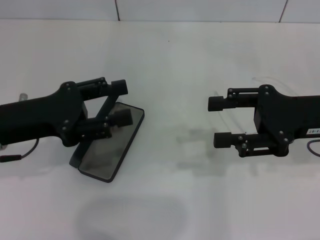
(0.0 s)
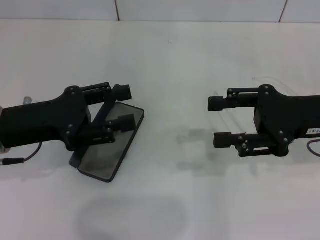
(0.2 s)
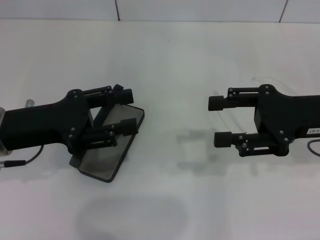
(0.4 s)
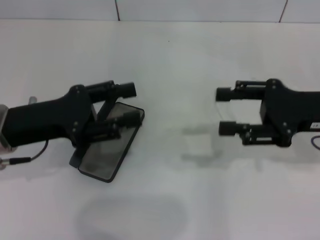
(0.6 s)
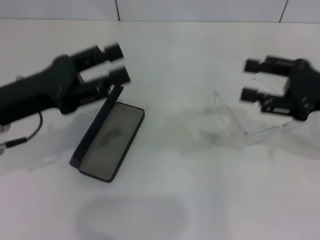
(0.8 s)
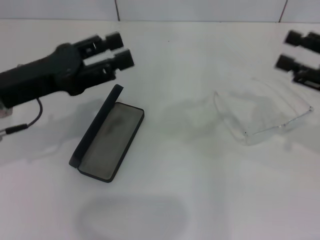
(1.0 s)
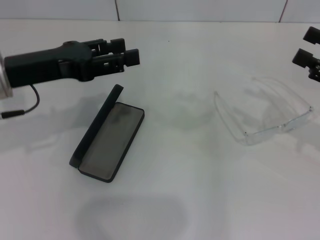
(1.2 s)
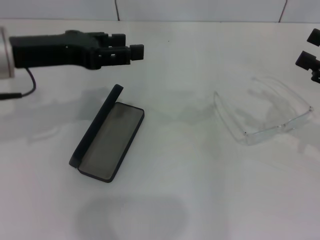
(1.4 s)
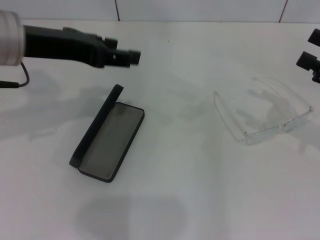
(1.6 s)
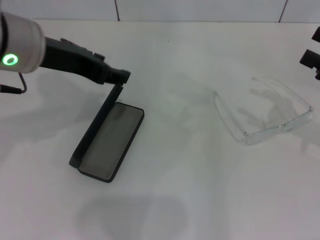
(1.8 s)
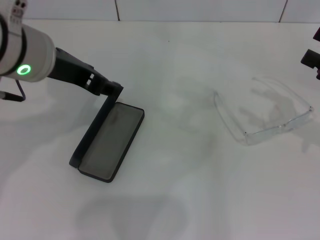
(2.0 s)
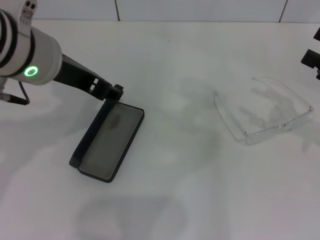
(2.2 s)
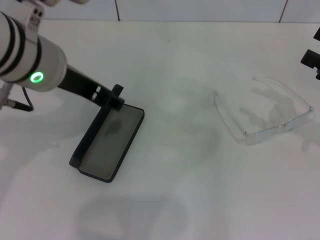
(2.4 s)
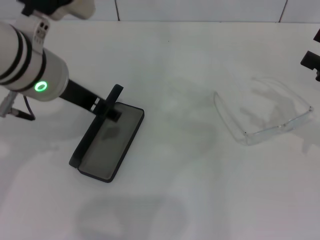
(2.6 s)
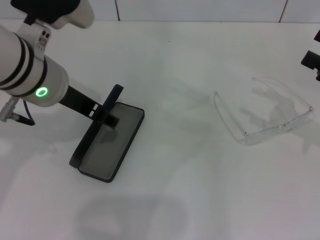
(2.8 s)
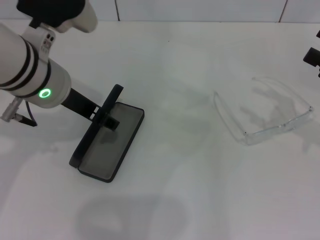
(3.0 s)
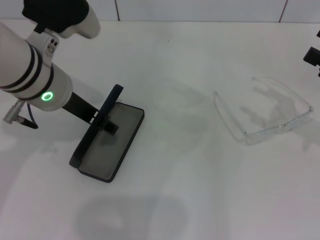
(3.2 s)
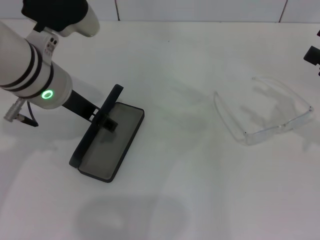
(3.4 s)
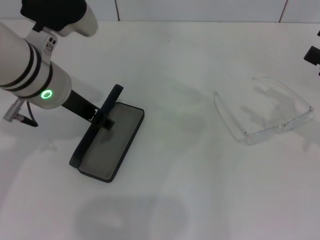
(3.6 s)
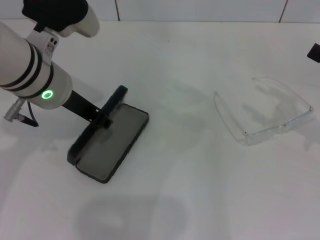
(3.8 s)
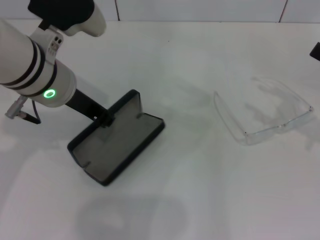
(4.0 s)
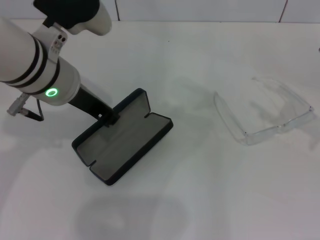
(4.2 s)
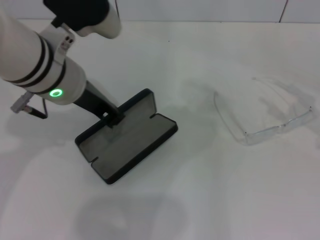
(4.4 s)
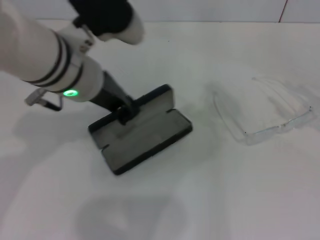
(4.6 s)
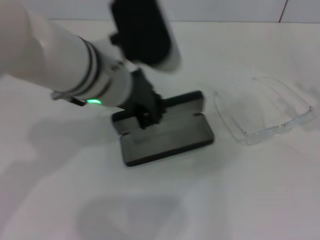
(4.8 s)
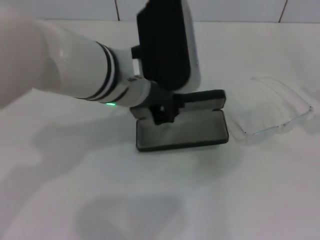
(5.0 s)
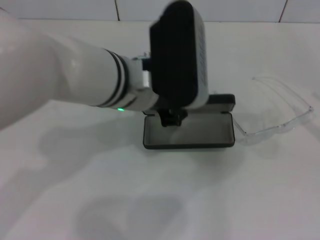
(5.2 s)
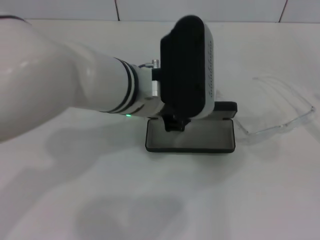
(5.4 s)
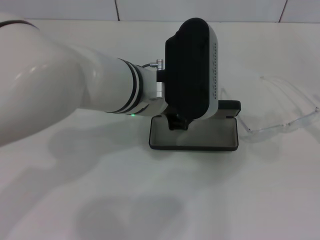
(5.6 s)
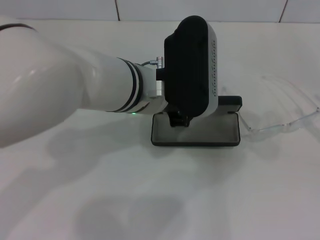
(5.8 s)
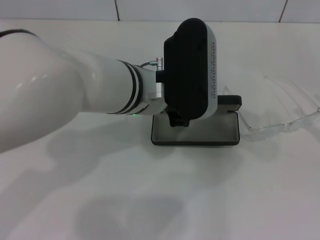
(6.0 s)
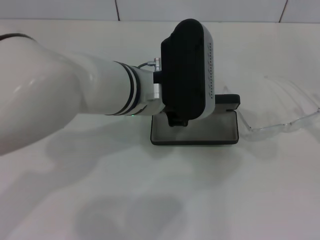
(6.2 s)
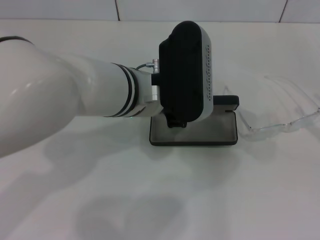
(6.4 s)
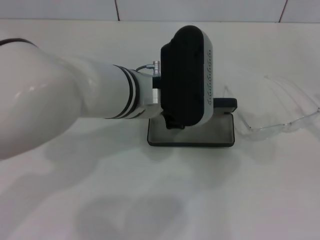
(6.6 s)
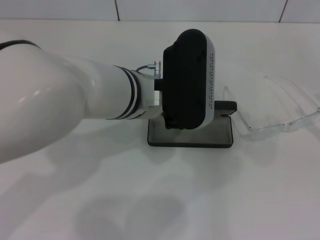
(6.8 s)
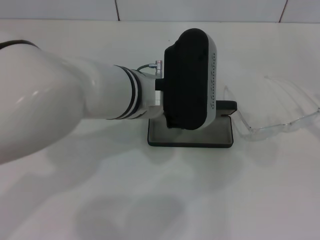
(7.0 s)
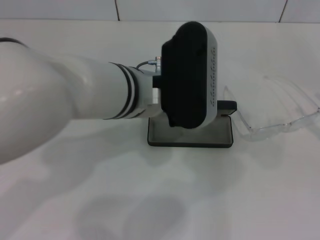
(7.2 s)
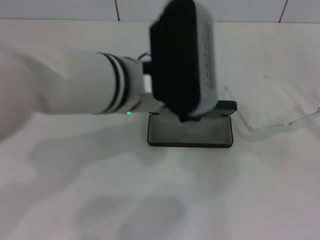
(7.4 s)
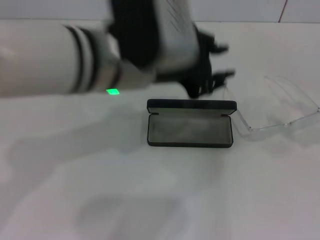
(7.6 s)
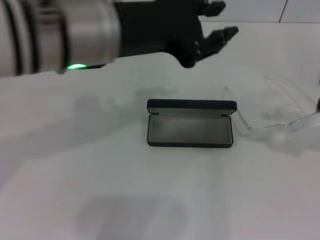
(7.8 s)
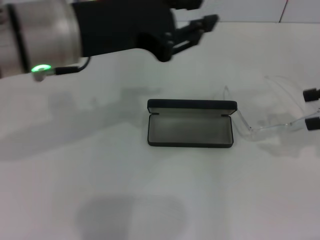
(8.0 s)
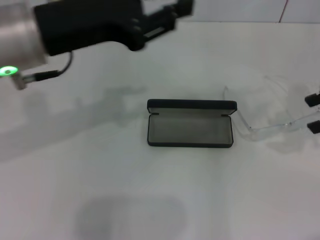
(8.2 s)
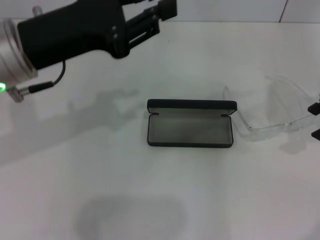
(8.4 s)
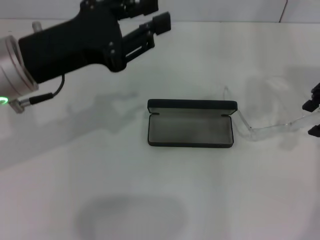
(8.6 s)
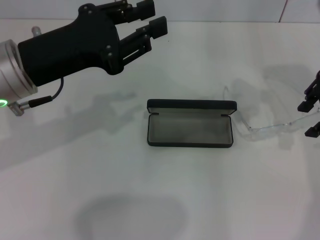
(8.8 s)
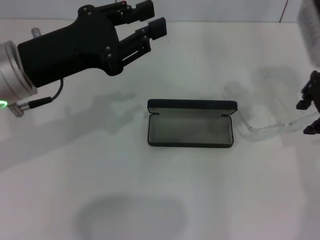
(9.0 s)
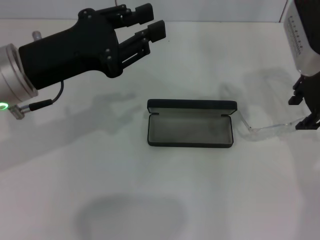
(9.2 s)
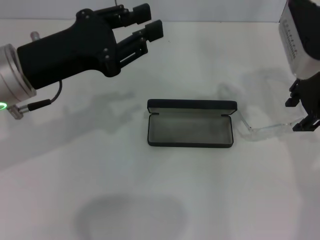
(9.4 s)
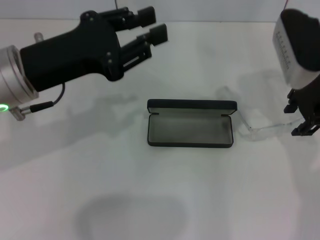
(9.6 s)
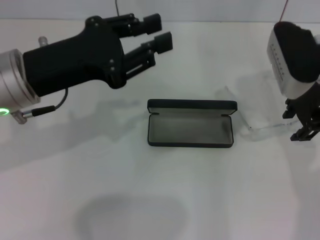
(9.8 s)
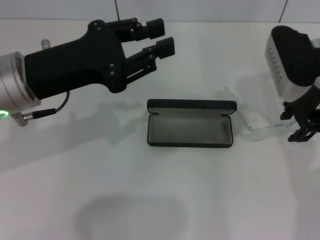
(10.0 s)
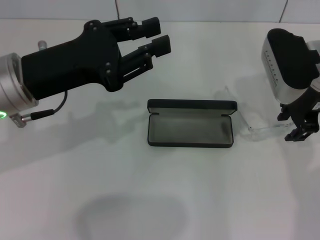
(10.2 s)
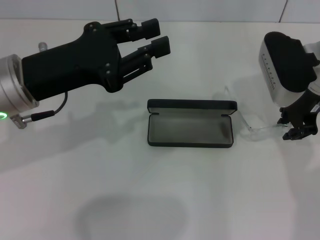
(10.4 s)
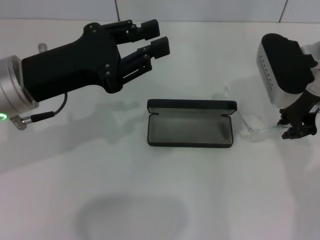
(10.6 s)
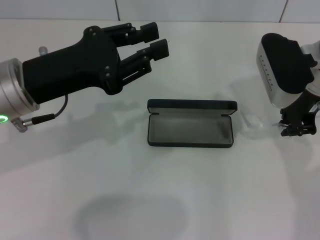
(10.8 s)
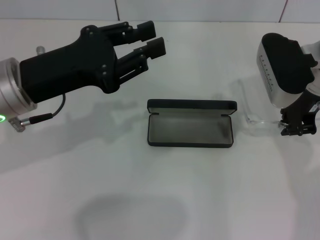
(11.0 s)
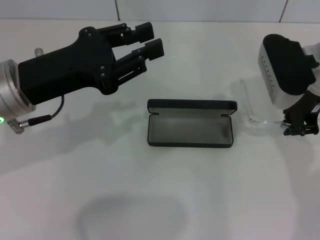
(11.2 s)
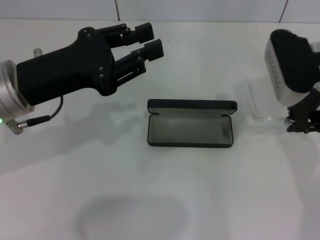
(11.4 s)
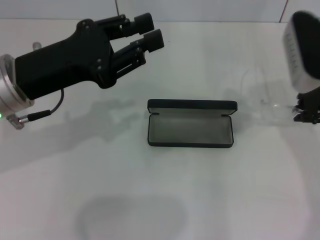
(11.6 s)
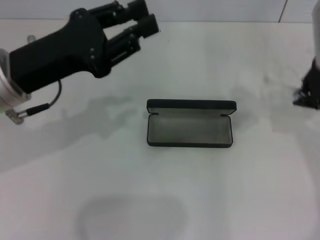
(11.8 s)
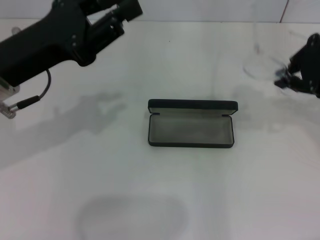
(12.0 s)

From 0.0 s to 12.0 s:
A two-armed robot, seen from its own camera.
Step, from 0.0 s to 3.8 s: Grab the glasses case with your left hand.
Step, from 4.2 s to 6.8 s: Place the glasses case in the center of the table with your left hand.
Step, from 7.0 s to 10.8 s: Grab the eyeglass frame with your right hand.
From 0.0 s to 1.6 s: The right gripper shifts about 10 cm to the right, while the left gripper travels upward by some 10 cm.
From 1.6 s to 3.0 s: The left gripper heads to the right, covering roughly 5 cm.
From 3.0 s to 4.4 s: The left gripper closes.
From 4.4 s to 6.0 s: The left gripper heads to the right, covering some 10 cm. Meanwhile the right gripper goes roughly 5 cm backward.
From 6.0 s to 7.6 s: The left gripper is displaced upward by approximately 5 cm.
From 7.6 s to 9.0 s: The left gripper moves to the left, roughly 15 cm. The right gripper moves to the left, forward and upward, some 25 cm.
From 9.0 s to 10.4 s: The right gripper moves downward, about 5 cm.
From 10.4 s to 12.0 s: The right gripper moves upward and to the right, about 10 cm, and closes up.

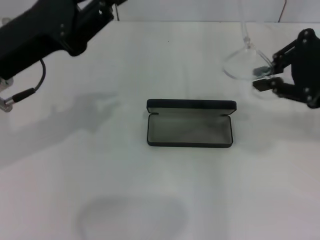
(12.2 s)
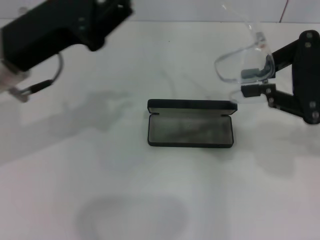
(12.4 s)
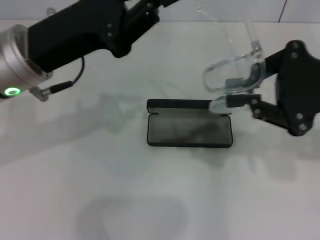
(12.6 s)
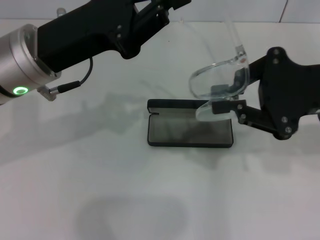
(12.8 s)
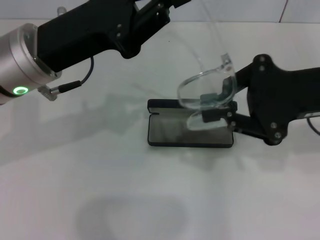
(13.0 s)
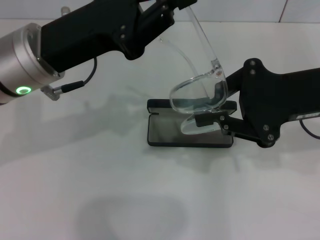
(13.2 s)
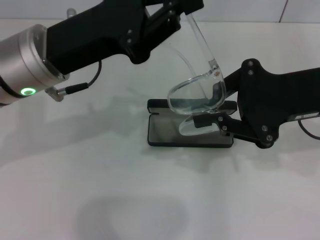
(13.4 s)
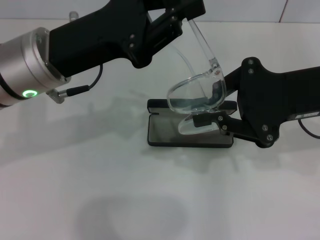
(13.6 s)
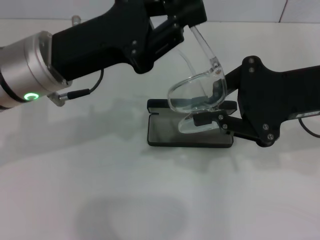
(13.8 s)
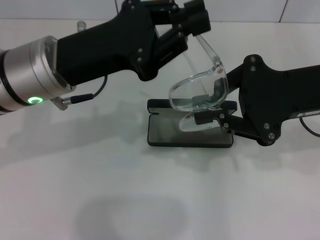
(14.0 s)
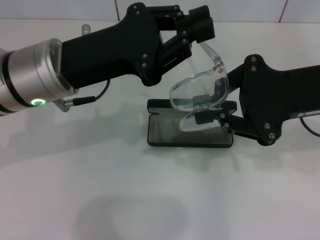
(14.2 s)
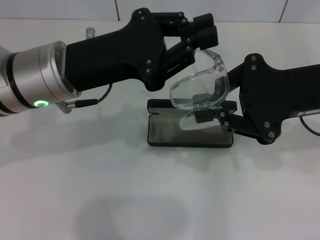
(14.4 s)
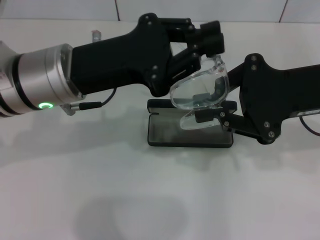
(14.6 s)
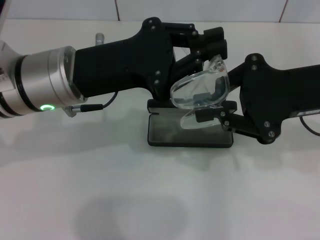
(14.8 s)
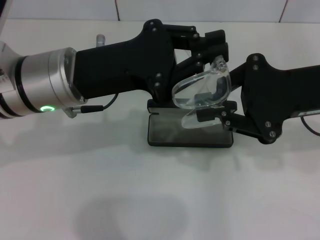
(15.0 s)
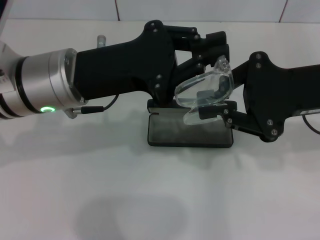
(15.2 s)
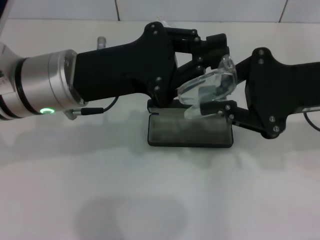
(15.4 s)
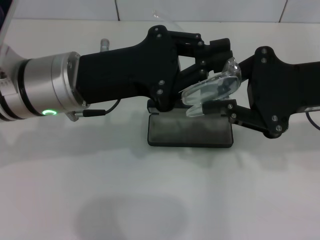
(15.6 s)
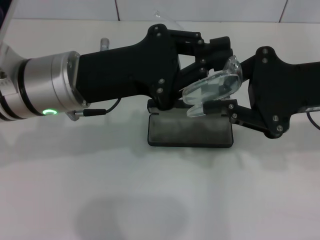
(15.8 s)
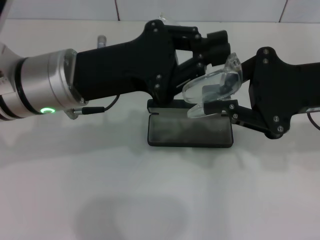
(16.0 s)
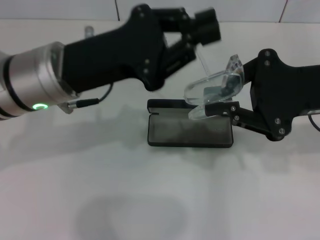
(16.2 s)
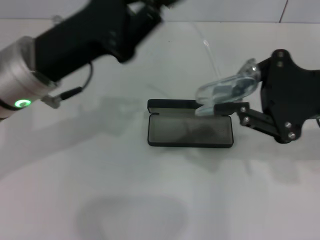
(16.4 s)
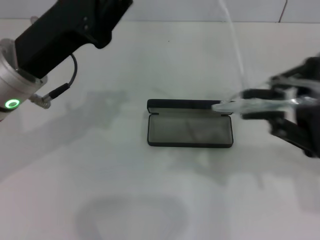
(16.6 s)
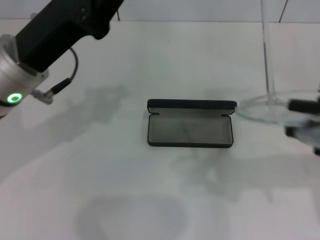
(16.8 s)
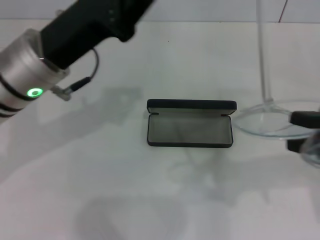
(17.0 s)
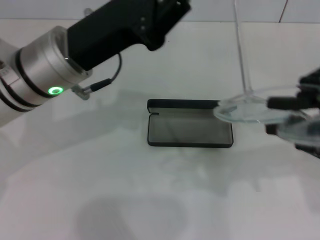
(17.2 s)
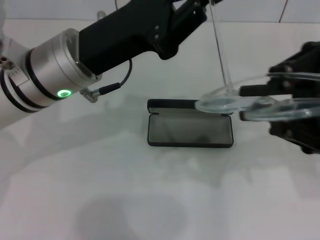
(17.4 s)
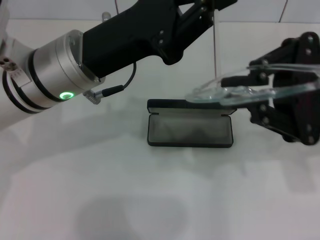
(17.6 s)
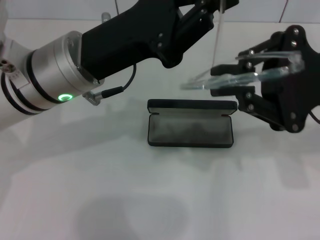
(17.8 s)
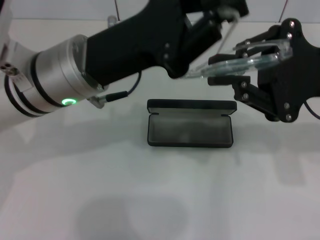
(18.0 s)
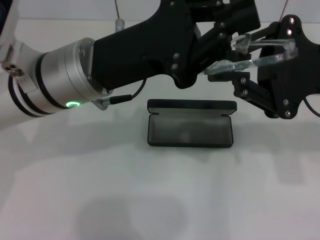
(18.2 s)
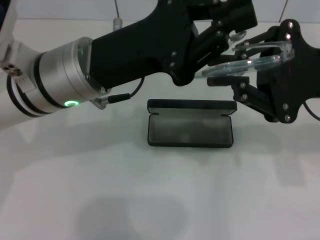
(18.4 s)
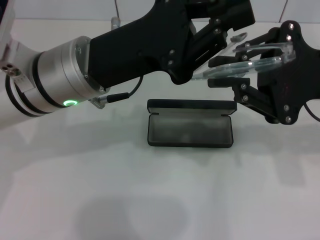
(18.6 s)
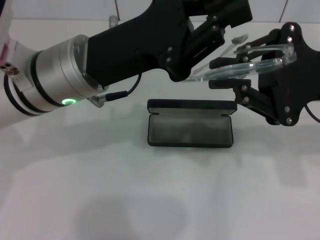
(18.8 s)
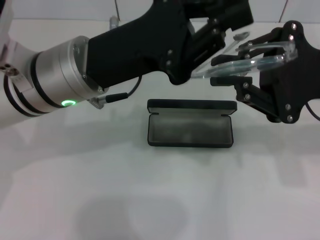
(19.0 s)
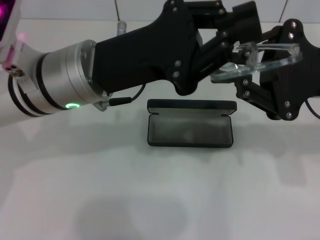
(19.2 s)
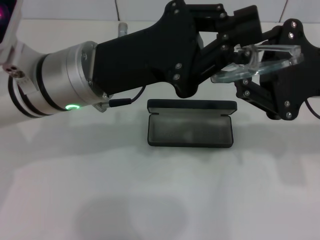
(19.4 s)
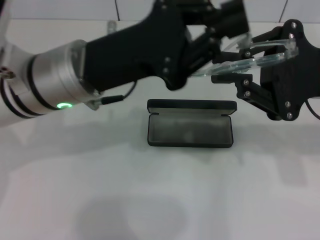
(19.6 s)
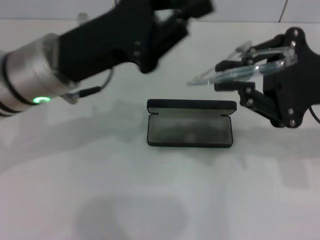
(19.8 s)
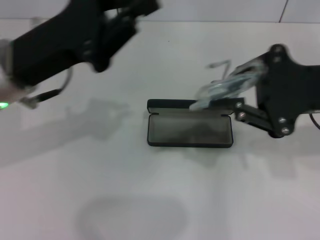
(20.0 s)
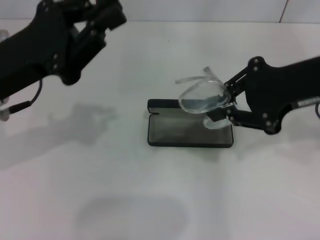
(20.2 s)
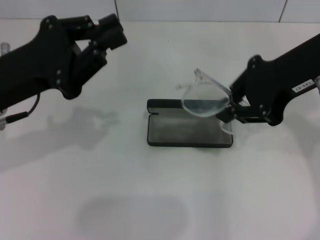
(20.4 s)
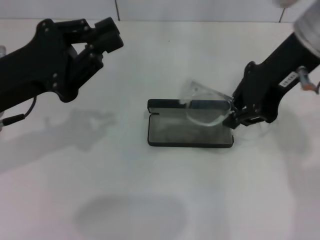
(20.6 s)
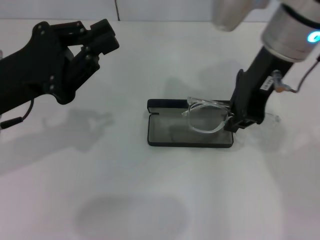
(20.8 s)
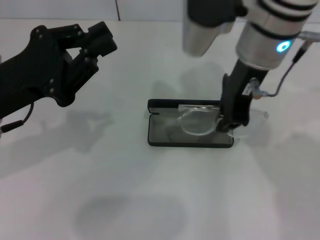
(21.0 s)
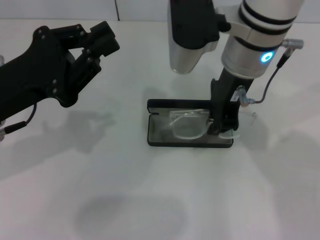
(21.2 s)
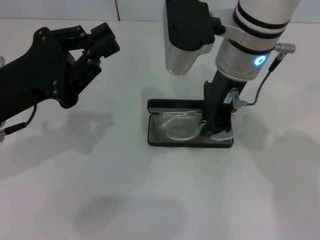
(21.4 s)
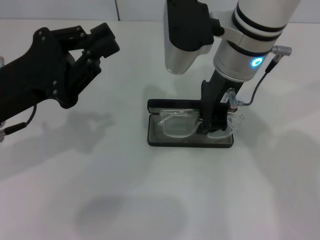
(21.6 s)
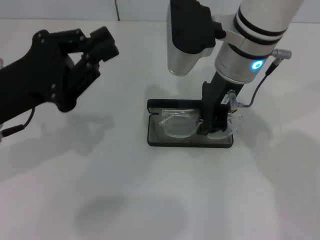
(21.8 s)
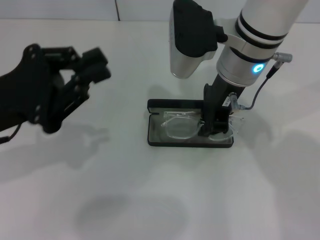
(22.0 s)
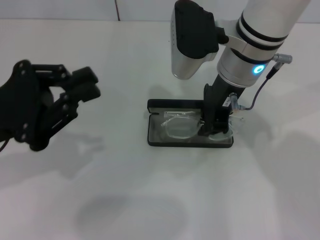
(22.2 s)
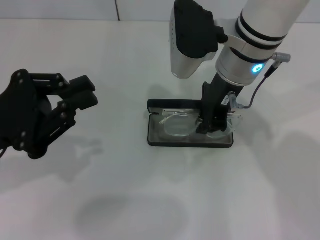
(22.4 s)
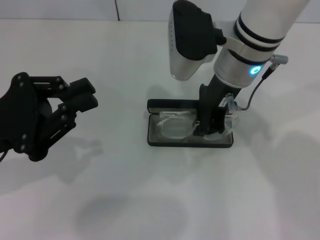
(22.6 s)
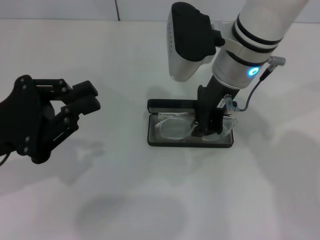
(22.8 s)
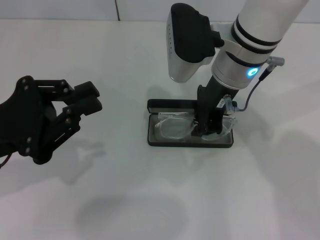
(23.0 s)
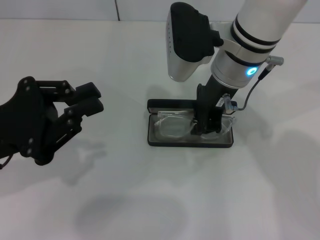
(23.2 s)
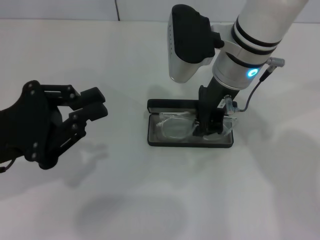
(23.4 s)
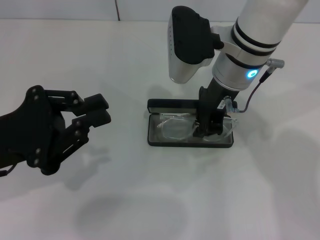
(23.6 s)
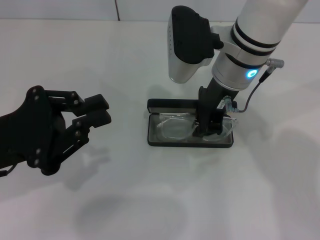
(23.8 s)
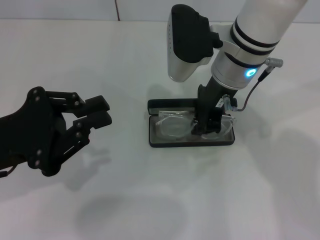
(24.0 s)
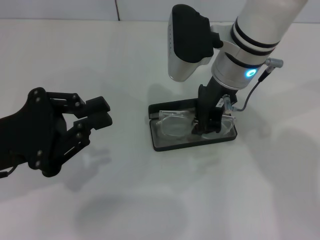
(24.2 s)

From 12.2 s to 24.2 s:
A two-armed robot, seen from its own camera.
Step, from 12.2 s to 19.4 s: Fold the frame with your left hand.
From 12.2 s to 13.8 s: The left gripper travels to the right by about 5 cm. Meanwhile the right gripper goes some 5 cm downward.
From 15.2 s to 16.6 s: The right gripper moves about 5 cm.
From 16.6 s to 18.2 s: The left gripper goes roughly 5 cm to the right; the right gripper changes place by some 5 cm.
From 19.8 s to 21.2 s: The left gripper shifts some 10 cm to the left, while the right gripper goes some 20 cm to the left and forward.
From 22.6 s to 24.2 s: Neither gripper changes place.
